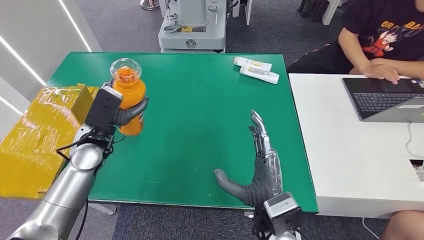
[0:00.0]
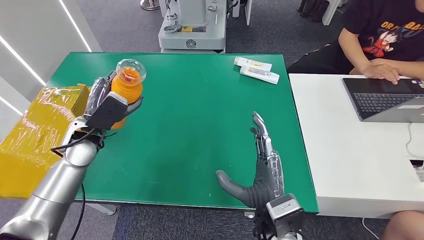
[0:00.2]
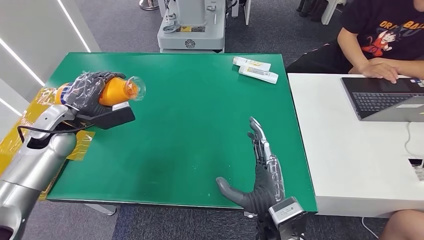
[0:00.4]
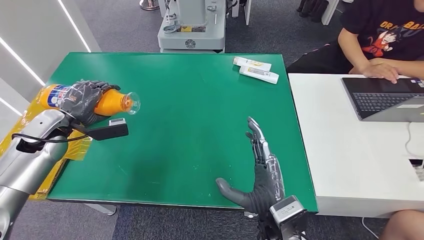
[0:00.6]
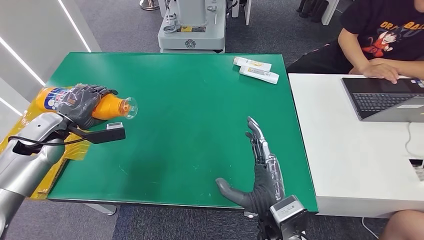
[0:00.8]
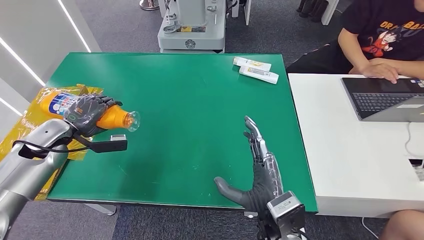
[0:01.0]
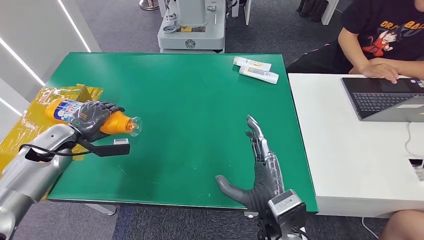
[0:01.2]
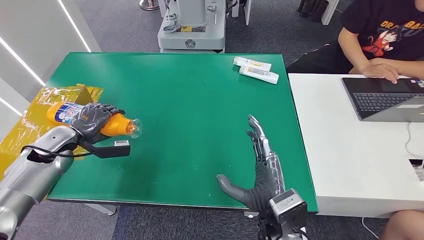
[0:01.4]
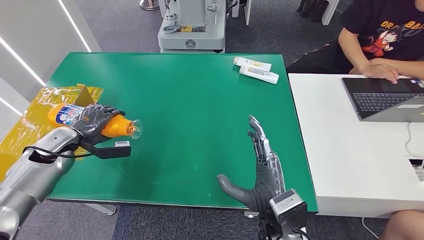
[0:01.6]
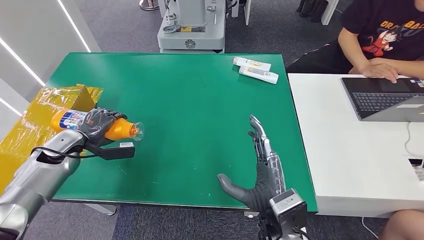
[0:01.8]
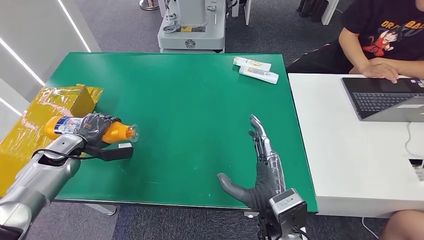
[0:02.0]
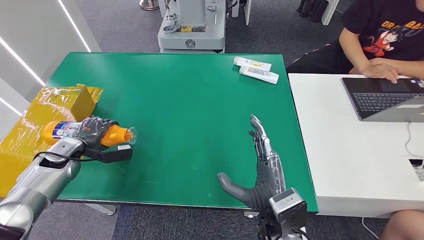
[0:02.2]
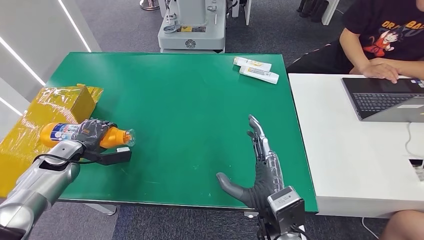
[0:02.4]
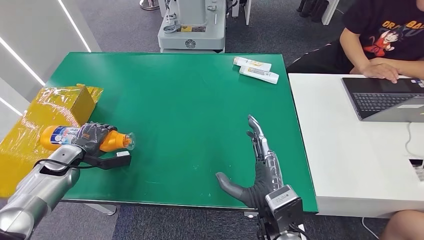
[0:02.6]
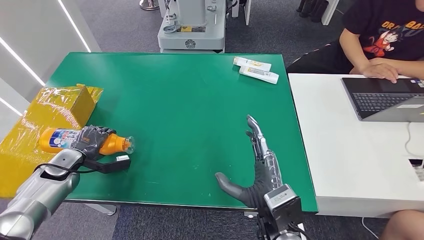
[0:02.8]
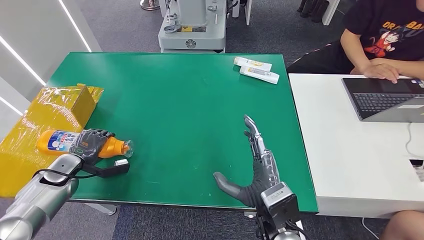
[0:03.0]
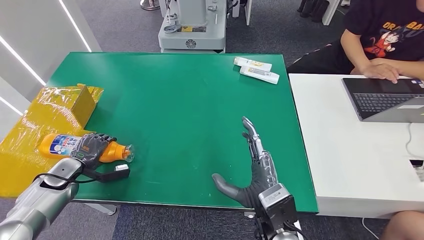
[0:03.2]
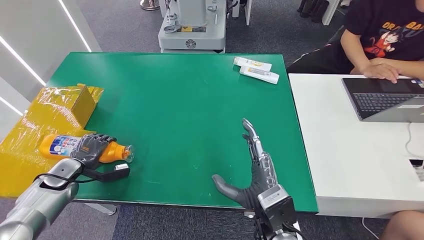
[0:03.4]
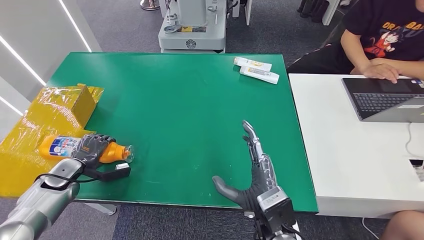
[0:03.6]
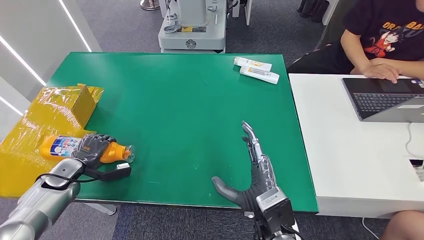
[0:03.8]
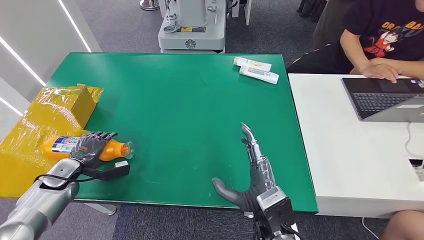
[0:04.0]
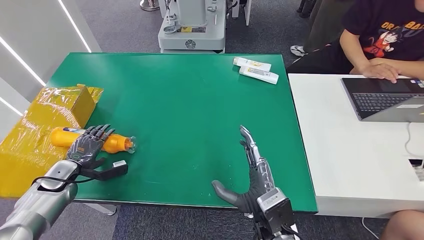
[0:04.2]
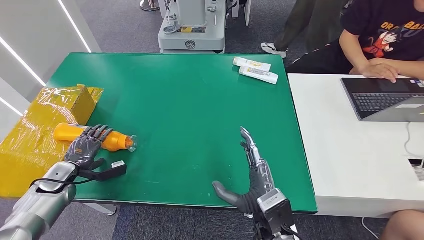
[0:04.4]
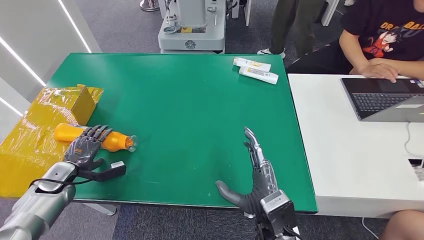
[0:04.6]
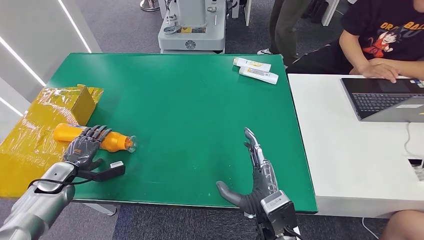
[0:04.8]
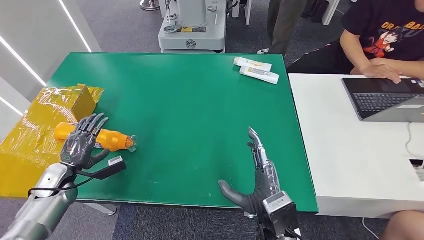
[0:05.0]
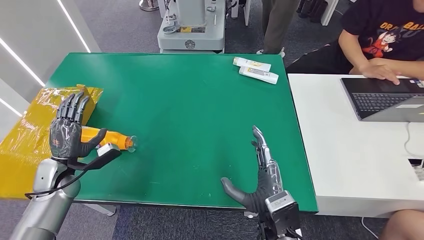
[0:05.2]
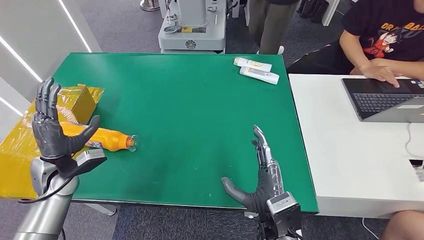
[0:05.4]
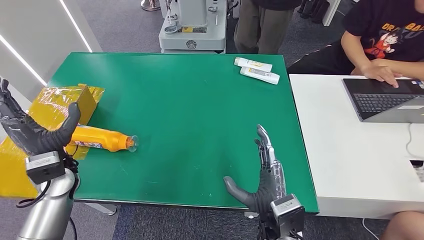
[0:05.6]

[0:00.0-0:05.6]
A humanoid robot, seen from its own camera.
Step, 0:00.0 to 0:05.6: Turn the bottle to the front side.
0:00.0 to 0:01.4: The left hand is displaced to the left by approximately 15 cm.
0:01.4 to 0:02.8: The left hand is displaced downward by some 10 cm.
0:02.8 to 0:04.2: The hands make only small movements.
0:04.2 to 0:05.6: The left hand is displaced upward and to the right by about 15 cm.

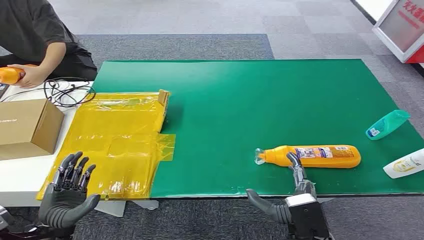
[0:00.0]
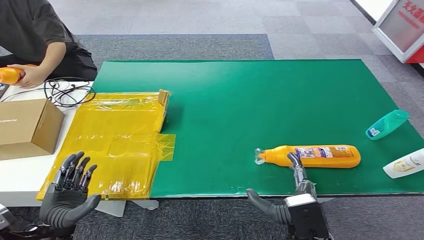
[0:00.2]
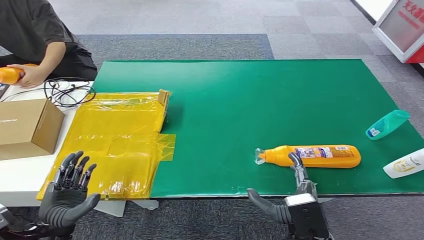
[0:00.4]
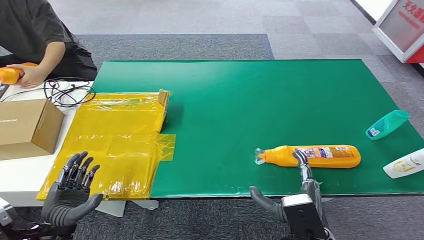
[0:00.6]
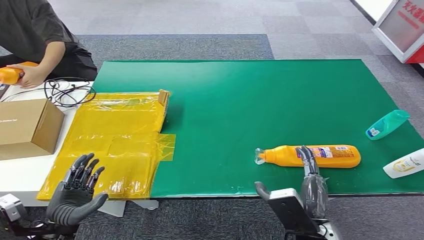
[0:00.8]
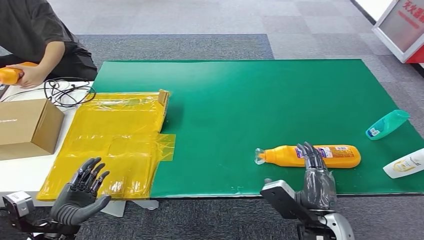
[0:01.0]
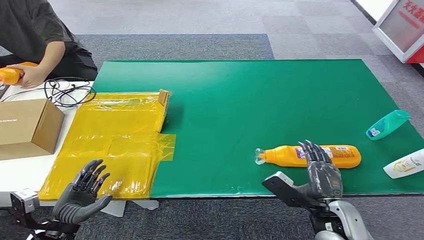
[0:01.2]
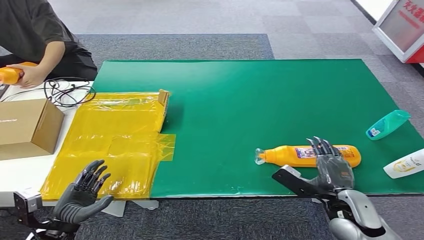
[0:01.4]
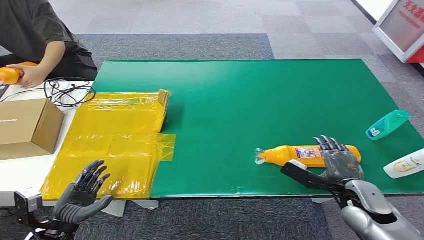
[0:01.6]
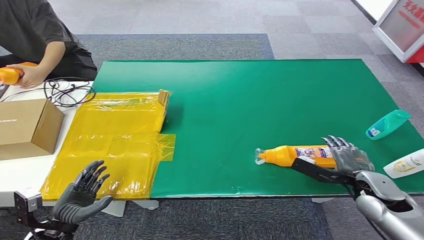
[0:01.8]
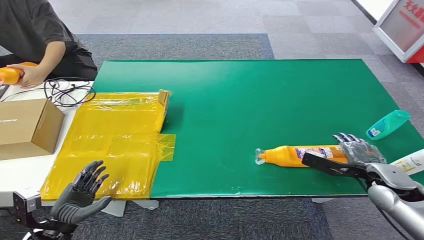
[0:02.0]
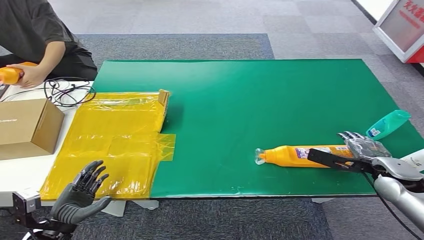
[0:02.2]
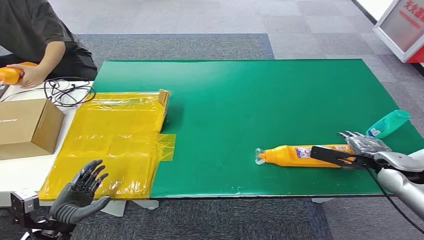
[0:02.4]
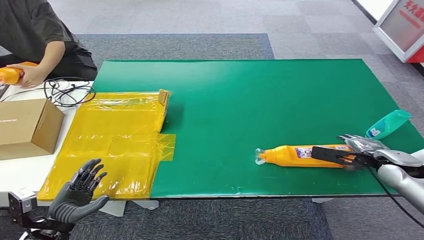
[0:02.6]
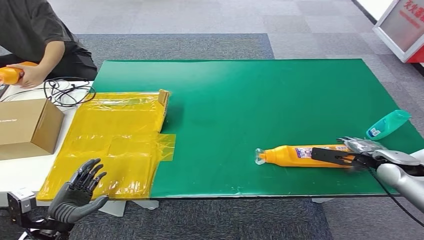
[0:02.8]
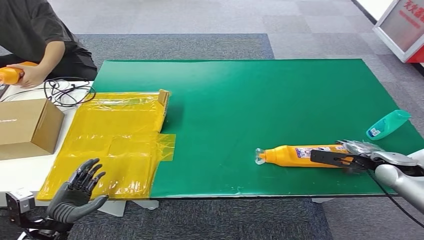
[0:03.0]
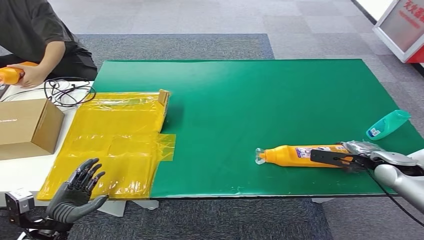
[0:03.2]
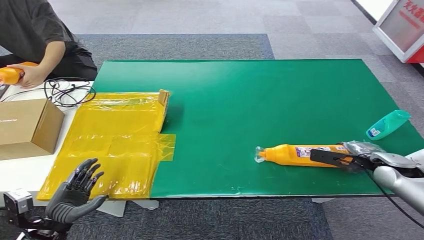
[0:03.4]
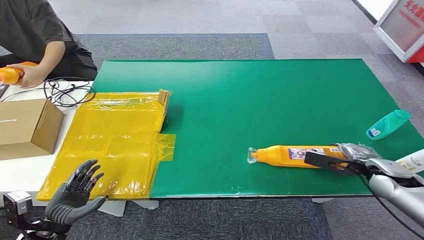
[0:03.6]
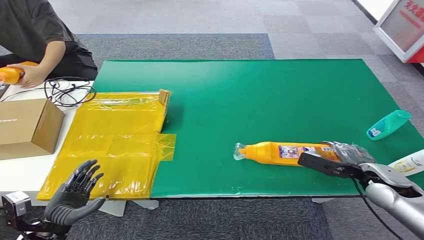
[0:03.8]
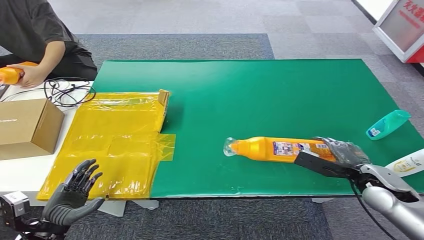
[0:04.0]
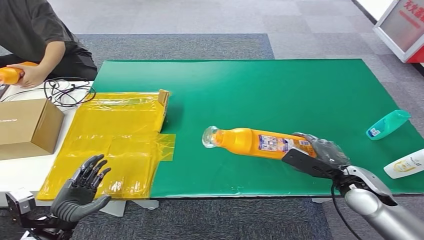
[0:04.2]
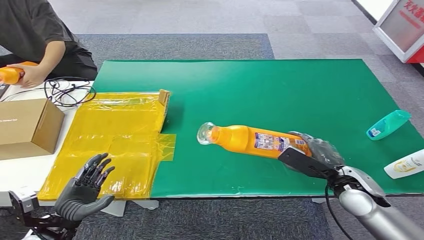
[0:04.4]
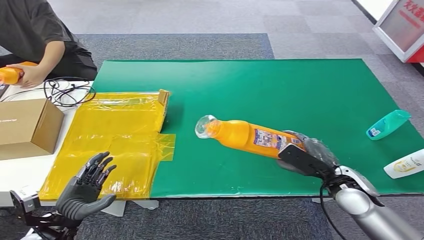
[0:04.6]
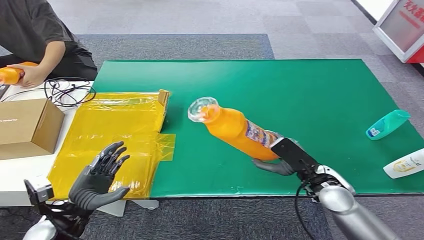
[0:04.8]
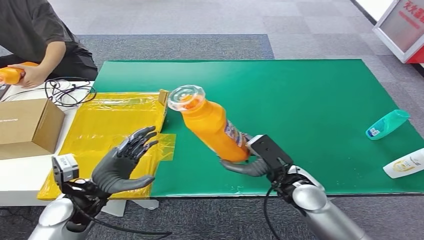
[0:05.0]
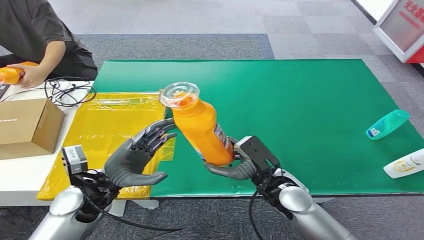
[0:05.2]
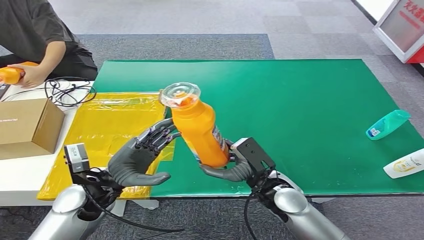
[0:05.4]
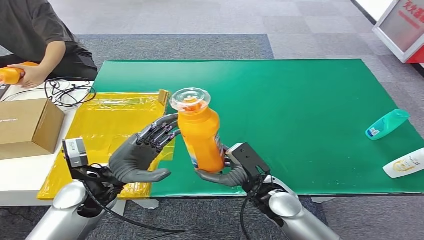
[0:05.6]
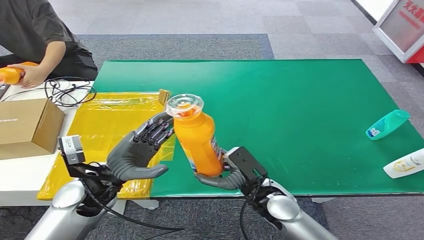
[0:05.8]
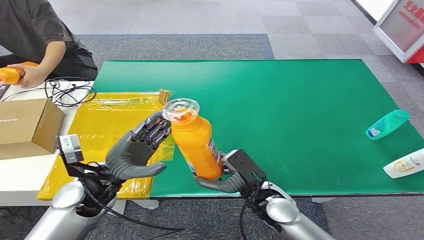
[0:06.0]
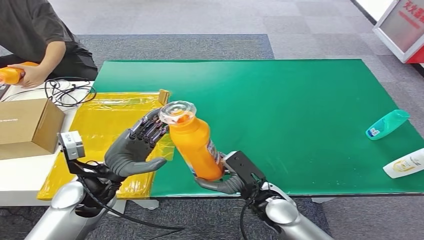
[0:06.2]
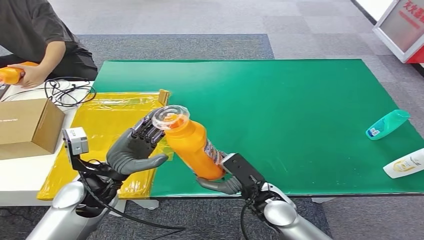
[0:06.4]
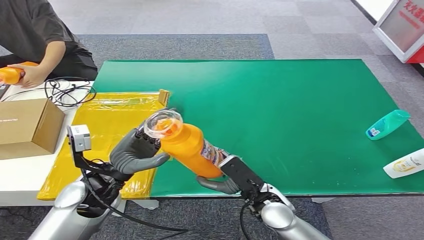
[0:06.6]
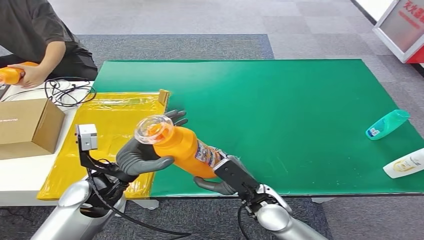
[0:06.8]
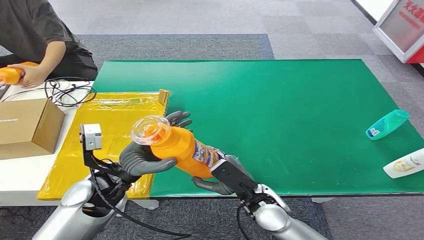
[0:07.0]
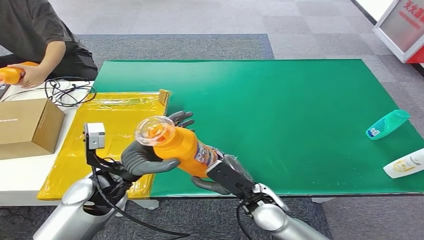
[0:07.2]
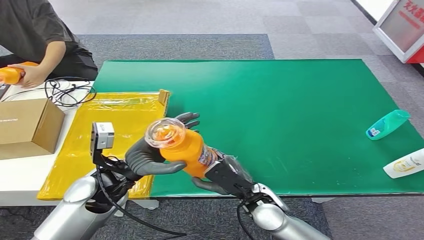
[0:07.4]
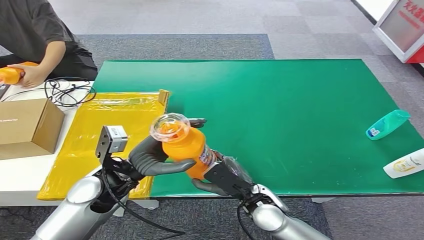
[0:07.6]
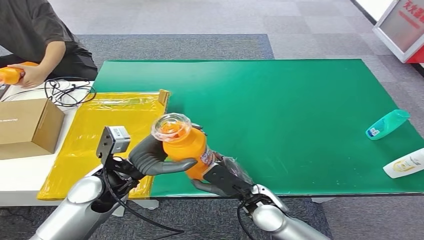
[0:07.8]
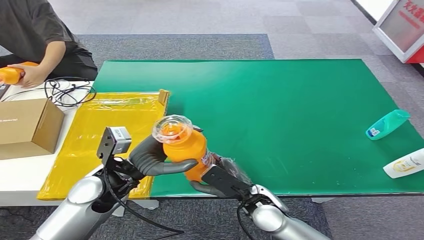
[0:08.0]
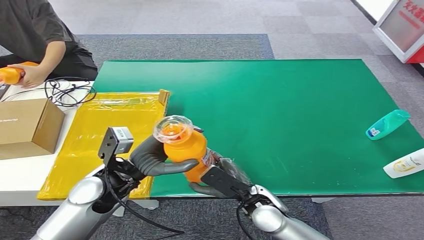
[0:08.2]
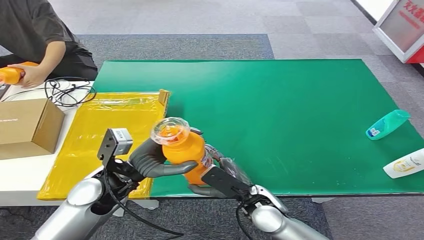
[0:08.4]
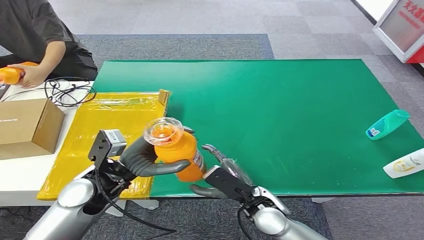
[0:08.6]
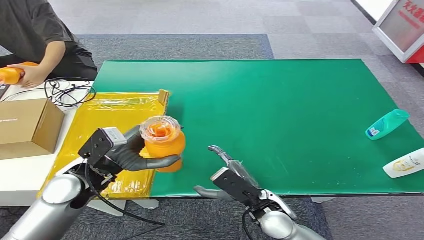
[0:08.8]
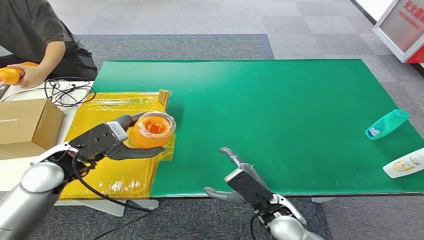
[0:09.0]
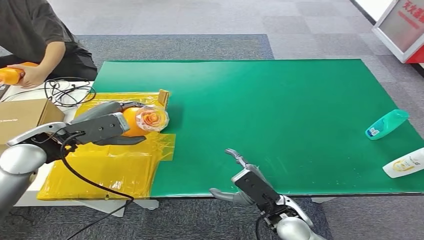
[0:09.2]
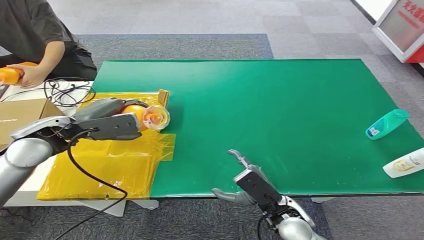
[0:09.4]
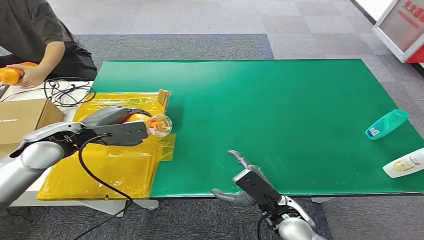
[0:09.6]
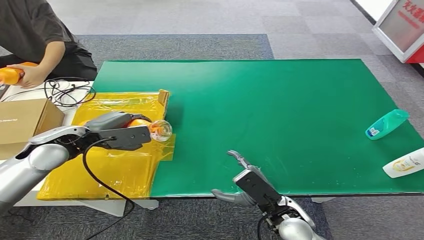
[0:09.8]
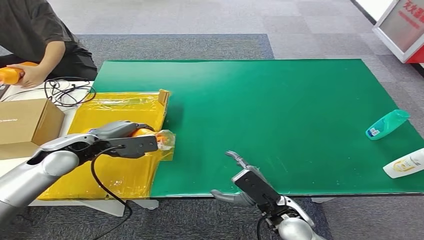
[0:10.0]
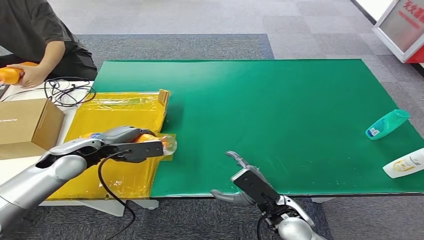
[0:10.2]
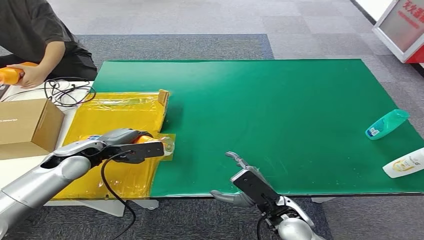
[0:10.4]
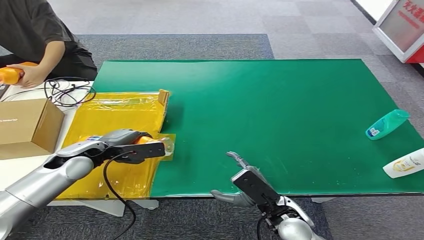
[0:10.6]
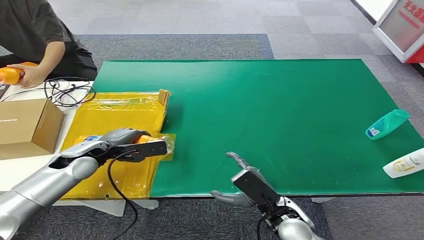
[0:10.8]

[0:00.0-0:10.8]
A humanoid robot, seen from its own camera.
Step, 0:00.0 to 0:05.0: Pick up the bottle from the table.
Step, 0:05.2 to 0:10.8: Turn the bottle to the front side.
0:01.6 to 0:03.0: The right hand travels forward and to the right by some 10 cm.
0:03.0 to 0:04.6: The right hand shifts approximately 10 cm to the left and backward.
0:07.8 to 0:09.2: The left hand goes about 20 cm to the left, upward and forward. Meanwhile the right hand heads to the right, covering some 5 cm.
0:09.2 to 0:10.8: The left hand heads downward, covering roughly 10 cm.
